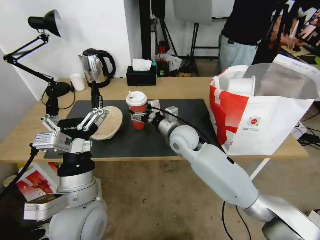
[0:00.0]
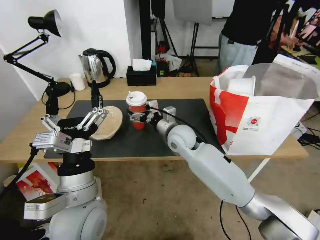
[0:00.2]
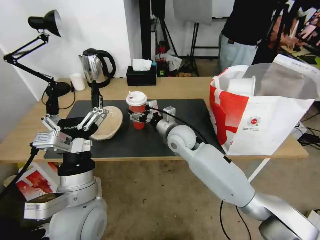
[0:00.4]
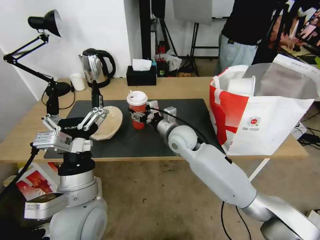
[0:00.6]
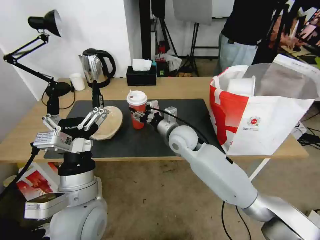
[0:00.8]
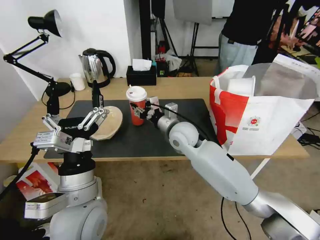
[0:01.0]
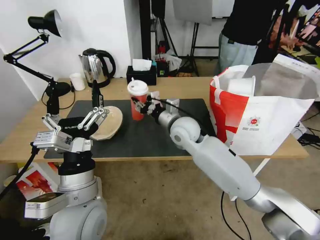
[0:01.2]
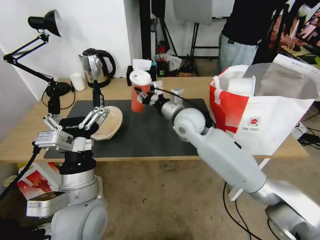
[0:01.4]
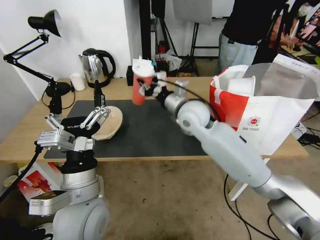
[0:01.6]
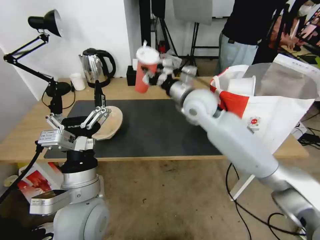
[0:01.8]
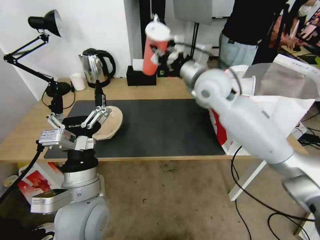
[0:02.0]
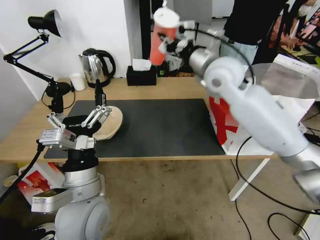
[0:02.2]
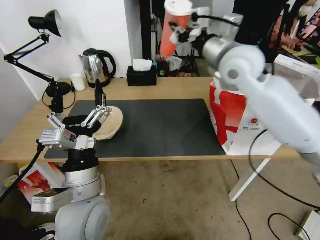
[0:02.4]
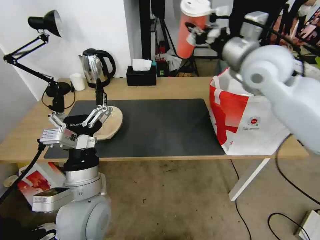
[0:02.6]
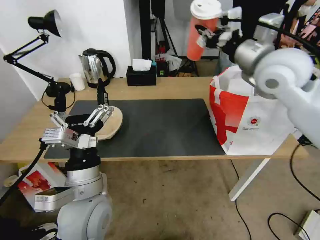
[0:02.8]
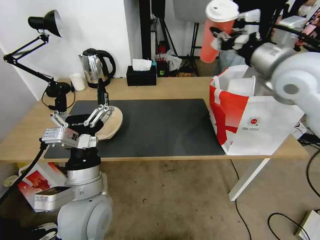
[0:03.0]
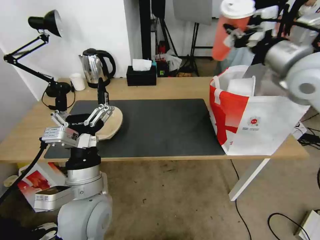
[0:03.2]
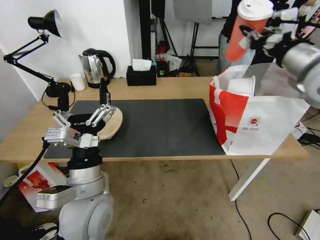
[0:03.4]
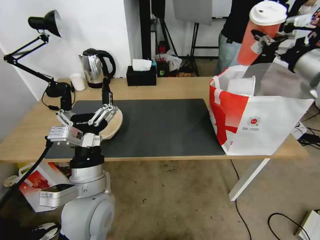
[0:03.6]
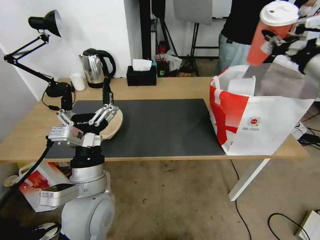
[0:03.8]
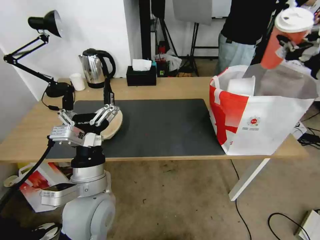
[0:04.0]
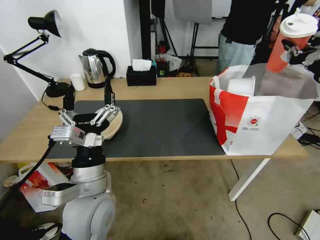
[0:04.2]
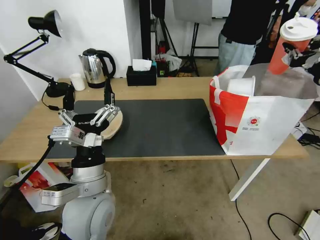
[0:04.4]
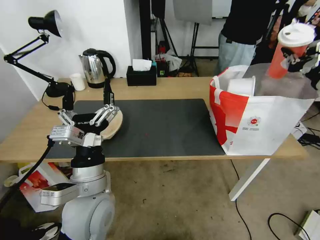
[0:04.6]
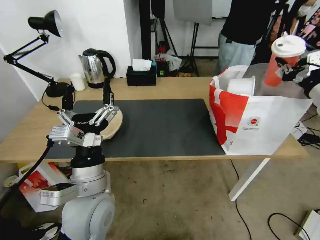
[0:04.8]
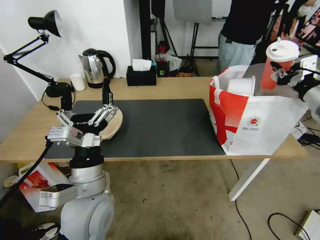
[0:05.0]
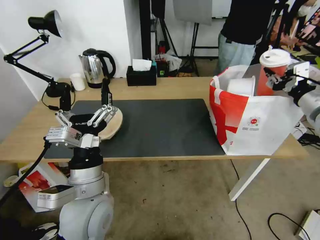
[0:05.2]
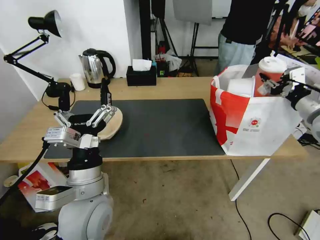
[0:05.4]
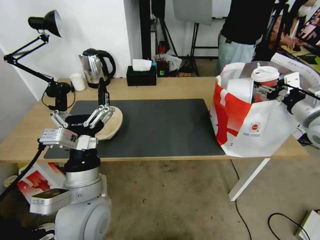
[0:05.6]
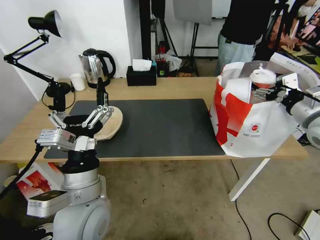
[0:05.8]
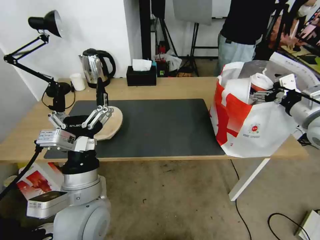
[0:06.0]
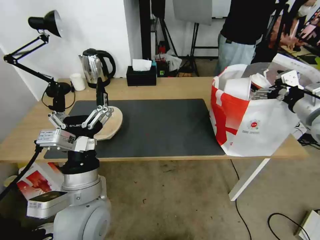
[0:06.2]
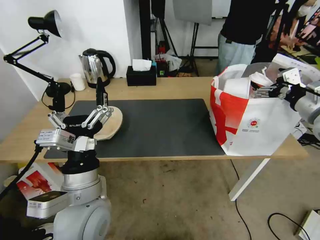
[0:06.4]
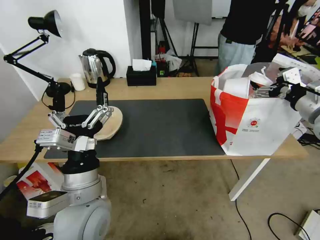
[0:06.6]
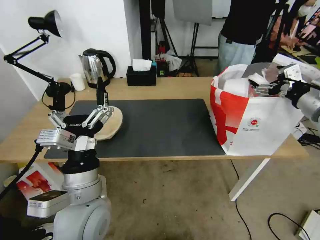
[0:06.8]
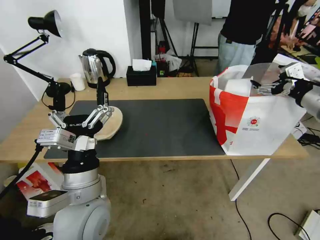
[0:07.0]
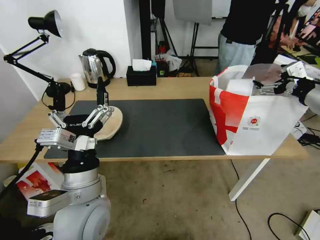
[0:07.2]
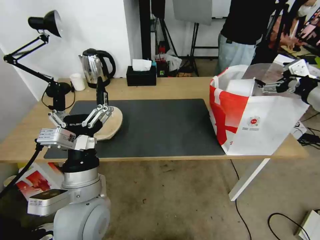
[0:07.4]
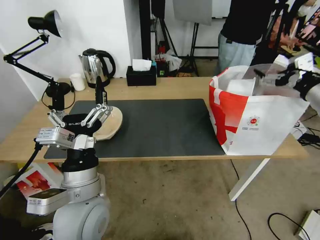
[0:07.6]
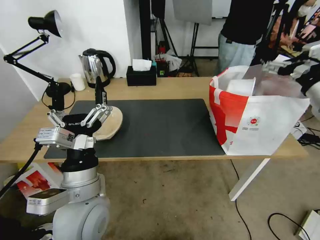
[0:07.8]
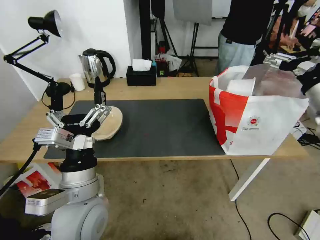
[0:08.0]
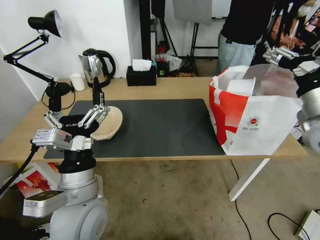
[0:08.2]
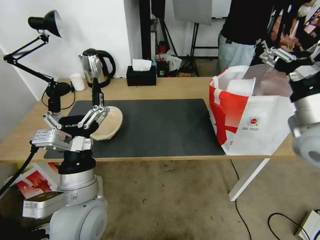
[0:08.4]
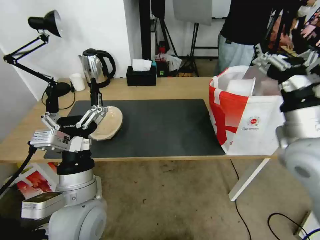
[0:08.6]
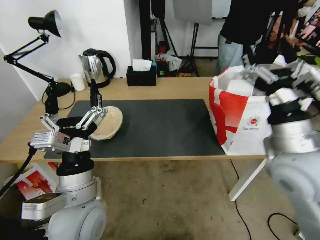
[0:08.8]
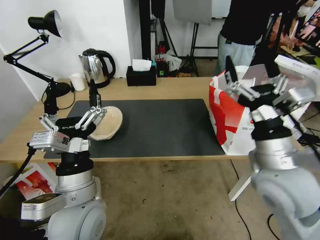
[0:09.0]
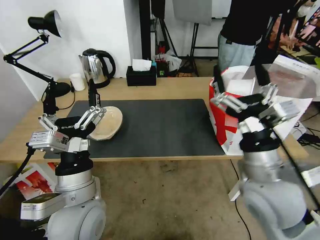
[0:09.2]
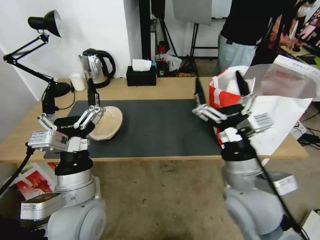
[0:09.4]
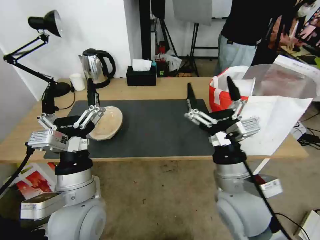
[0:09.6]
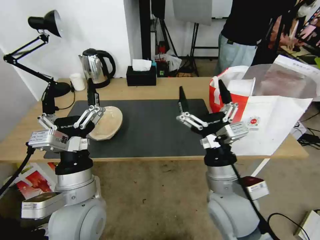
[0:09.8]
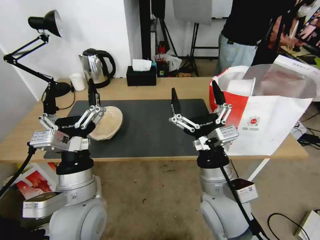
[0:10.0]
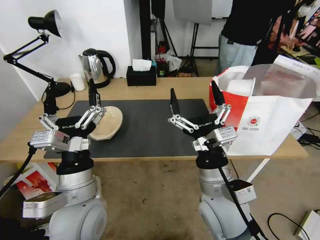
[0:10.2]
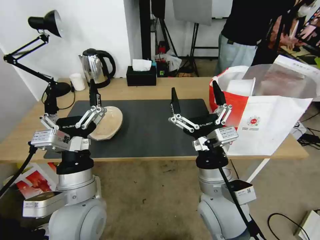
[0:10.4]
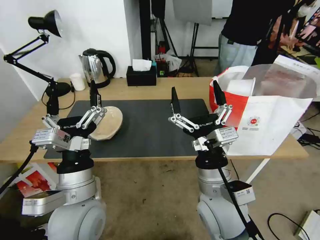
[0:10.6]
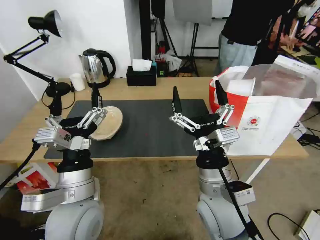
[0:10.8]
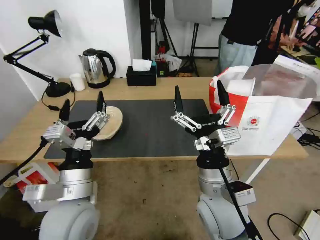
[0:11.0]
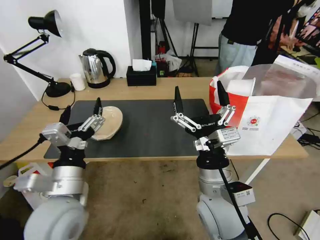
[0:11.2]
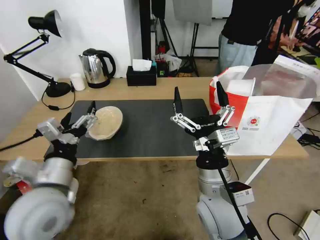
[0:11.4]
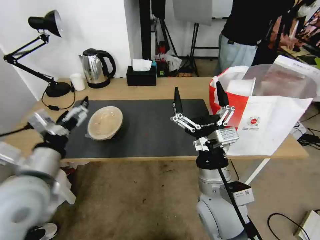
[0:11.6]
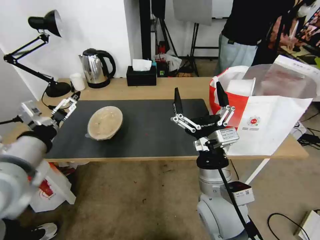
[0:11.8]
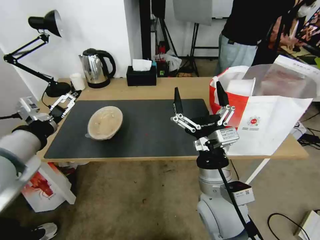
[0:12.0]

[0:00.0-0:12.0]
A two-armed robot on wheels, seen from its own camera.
Task of the whole recording: Pick up the trash from the table and place it into the takeout bag.
0:00.0 to 0:01.6: The right gripper goes roughly 5 cm upward, and closes.
0:01.6 to 0:03.0: The right gripper travels to the right and upward by approximately 25 cm.
0:03.0 to 0:04.4: The right gripper heads to the right, covering approximately 15 cm.
0:04.4 to 0:06.0: The right gripper shifts about 10 cm downward, and opens its fingers.
0:06.0 to 0:07.6: The right gripper heads upward, covering some 5 cm.
0:07.6 to 0:09.0: The right gripper heads to the left, backward and downward, covering some 25 cm.
0:09.0 to 0:10.4: The right gripper travels to the left and downward by about 15 cm.
0:10.4 to 0:12.0: The left gripper travels to the left and upward by approximately 20 cm.

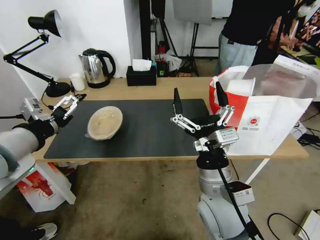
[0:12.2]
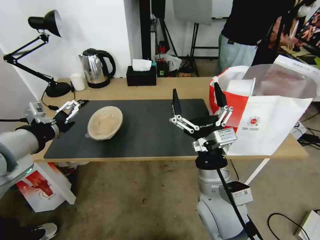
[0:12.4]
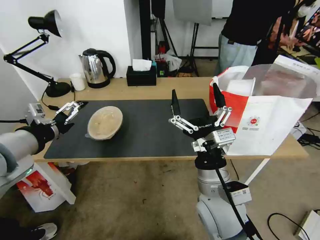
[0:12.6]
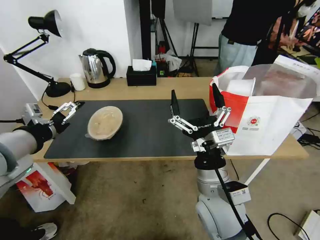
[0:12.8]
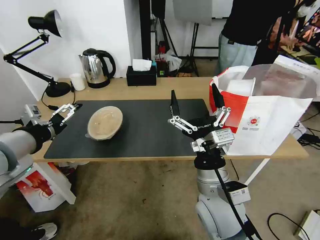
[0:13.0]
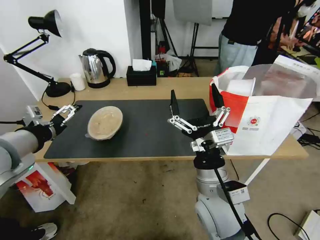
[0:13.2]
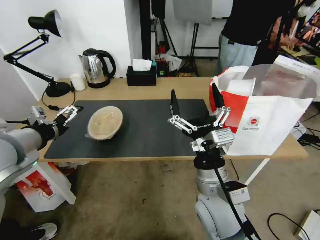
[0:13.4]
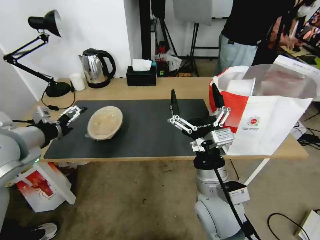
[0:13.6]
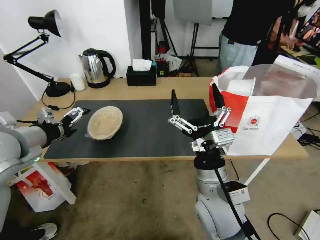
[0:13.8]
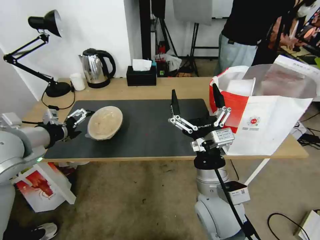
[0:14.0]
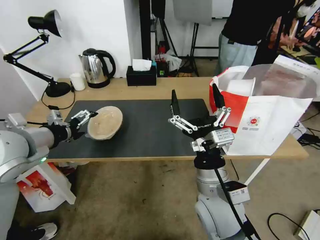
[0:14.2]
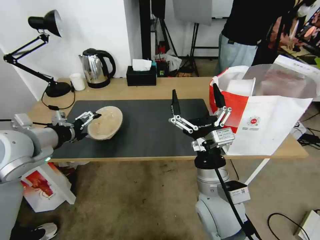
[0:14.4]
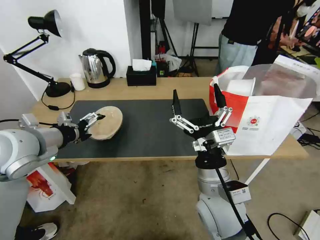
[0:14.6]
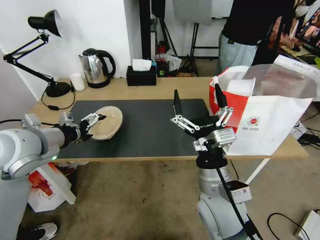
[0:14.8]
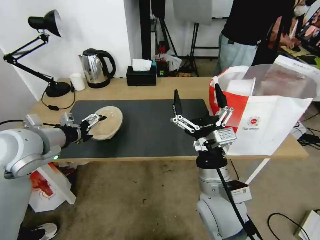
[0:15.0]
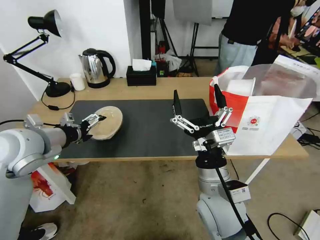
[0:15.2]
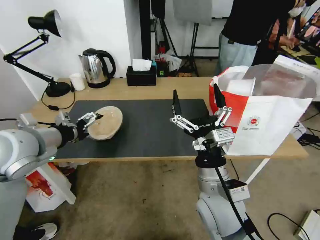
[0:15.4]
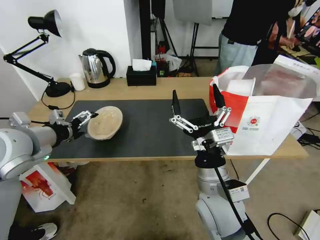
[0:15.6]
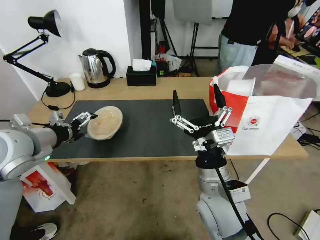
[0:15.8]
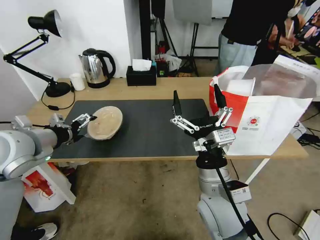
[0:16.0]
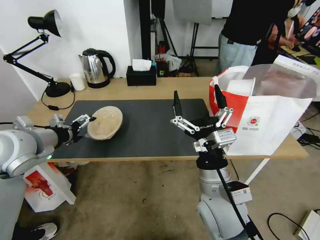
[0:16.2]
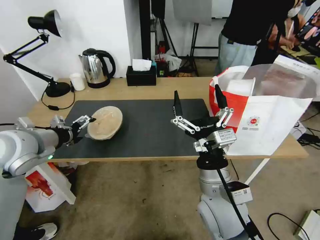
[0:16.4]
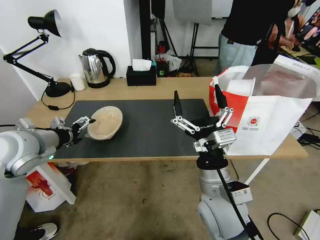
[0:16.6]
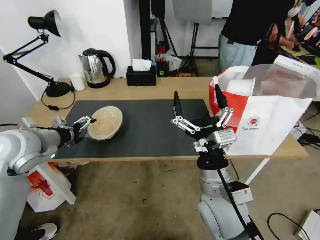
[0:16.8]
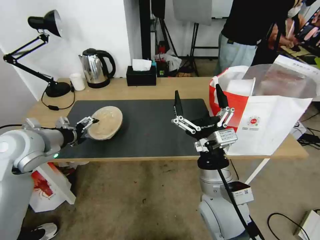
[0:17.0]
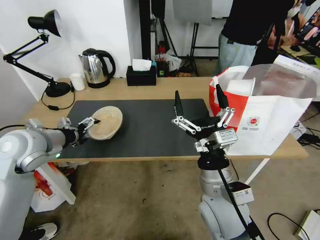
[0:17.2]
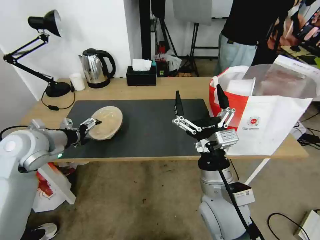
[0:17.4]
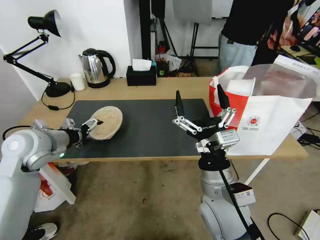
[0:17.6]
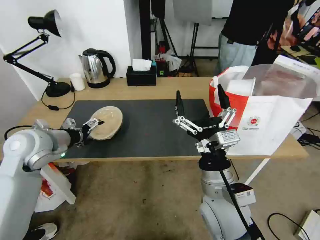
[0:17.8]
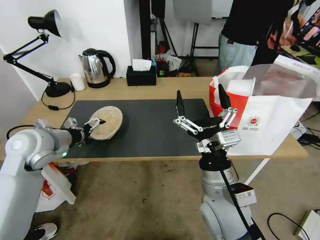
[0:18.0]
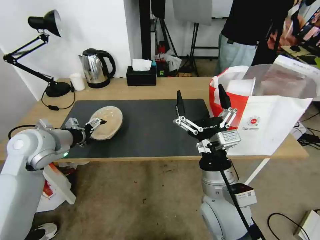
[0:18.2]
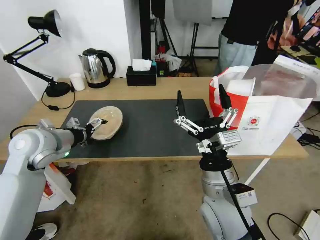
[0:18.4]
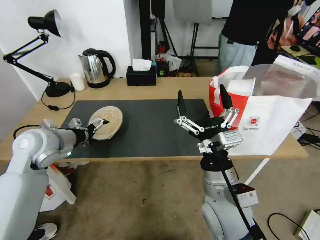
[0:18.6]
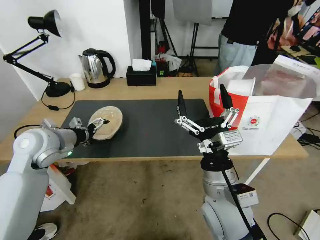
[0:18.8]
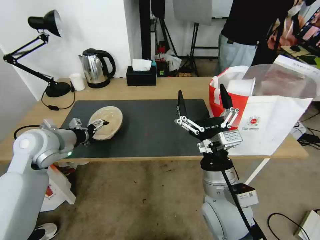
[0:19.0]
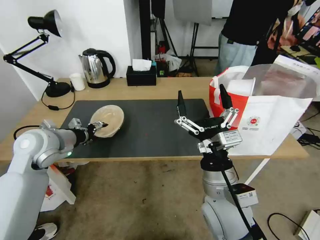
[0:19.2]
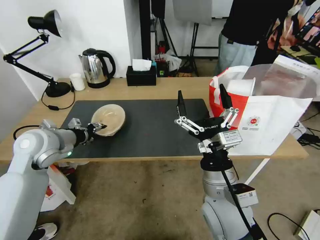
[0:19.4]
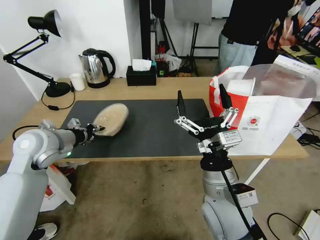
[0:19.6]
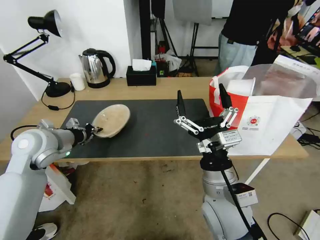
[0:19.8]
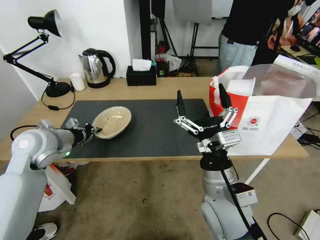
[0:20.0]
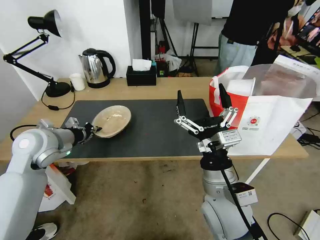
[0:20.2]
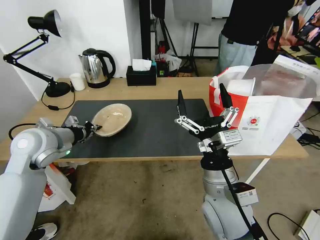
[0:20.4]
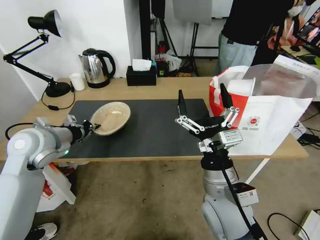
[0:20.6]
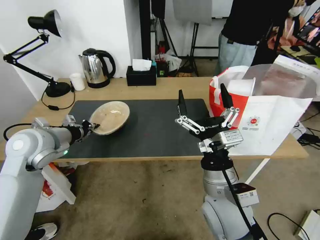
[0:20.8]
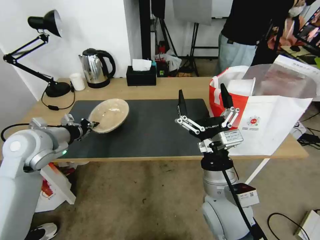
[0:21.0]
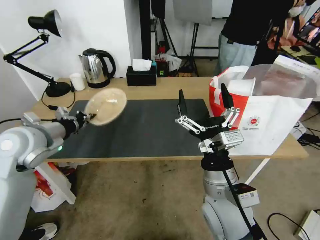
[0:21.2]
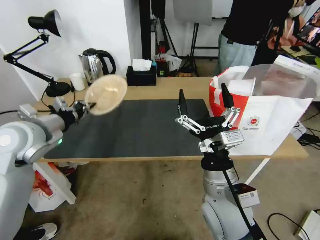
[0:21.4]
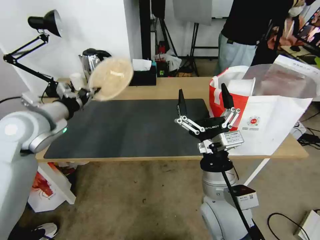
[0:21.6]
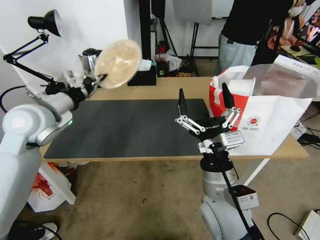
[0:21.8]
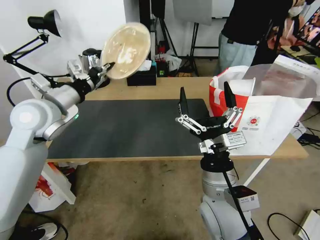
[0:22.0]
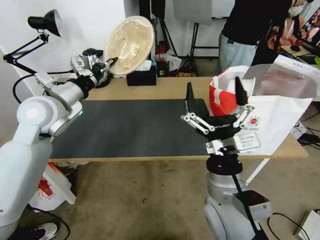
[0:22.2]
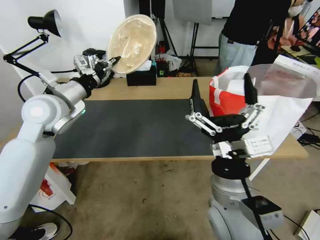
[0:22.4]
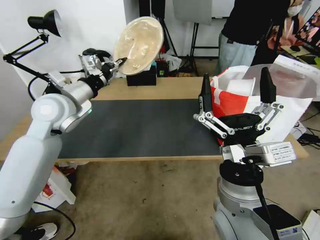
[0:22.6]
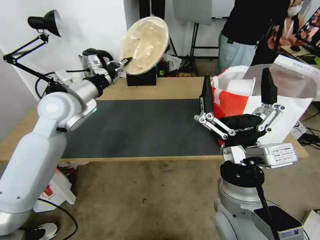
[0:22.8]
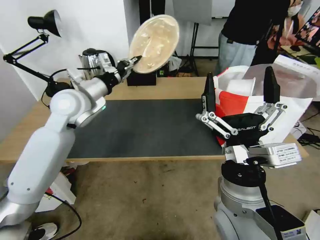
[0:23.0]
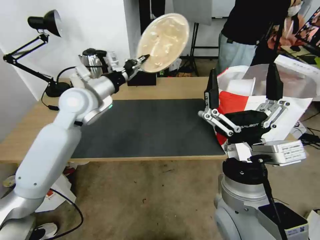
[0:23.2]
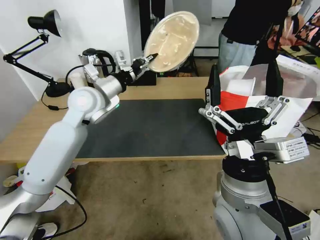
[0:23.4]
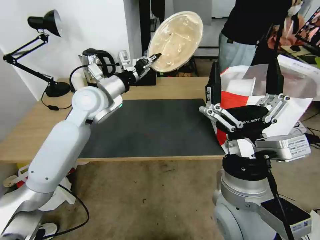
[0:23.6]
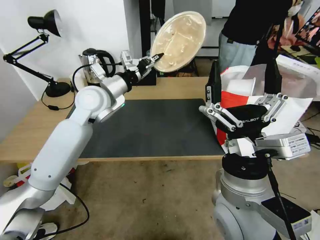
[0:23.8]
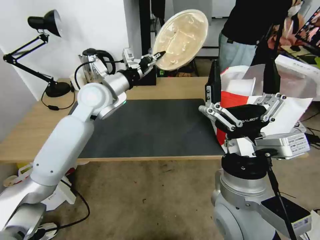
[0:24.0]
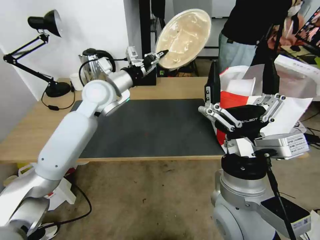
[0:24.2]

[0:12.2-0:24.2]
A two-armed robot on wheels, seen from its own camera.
Task of the whole recording: Pick up the trash from the table and place it into the takeout bag.
0:12.2 to 0:13.8: The left gripper heads forward, covering roughly 5 cm.
0:13.8 to 0:15.2: The left gripper changes place by some 5 cm.
0:15.2 to 0:18.2: The grippers move only a little.
0:18.2 to 0:19.8: The left gripper closes its fingers.
0:19.8 to 0:21.2: The grippers move only a little.
0:21.2 to 0:22.6: The left gripper heads forward and to the right, covering about 10 cm.
0:22.6 to 0:24.2: The left gripper goes about 10 cm to the right and forward.
